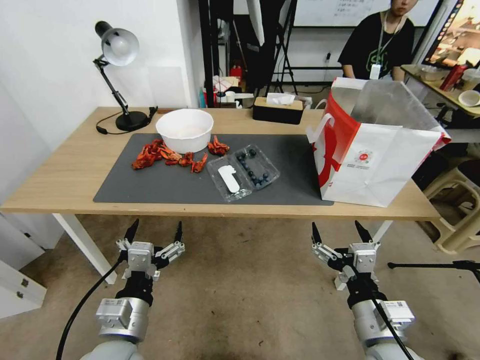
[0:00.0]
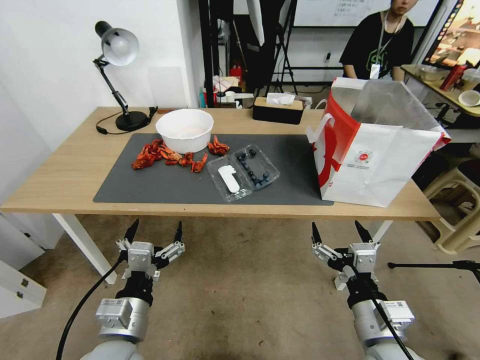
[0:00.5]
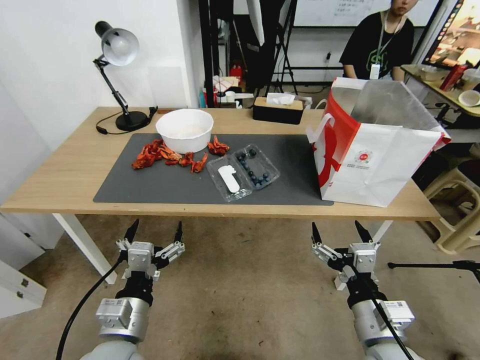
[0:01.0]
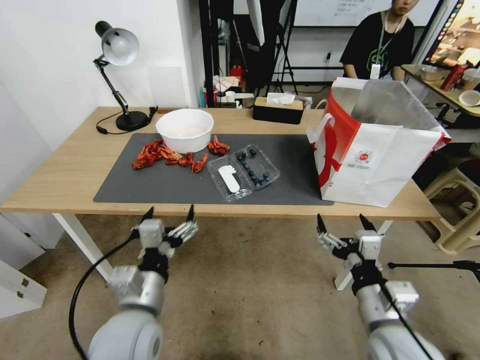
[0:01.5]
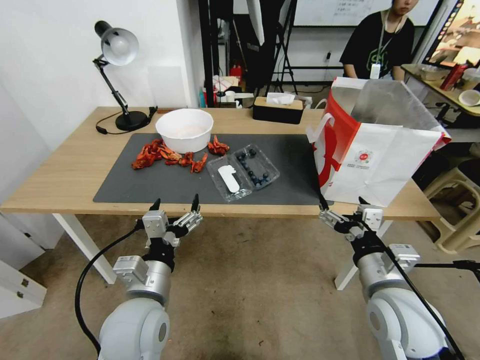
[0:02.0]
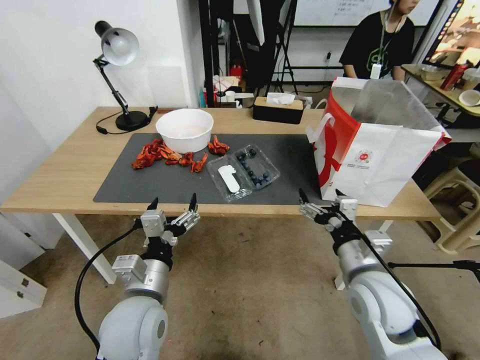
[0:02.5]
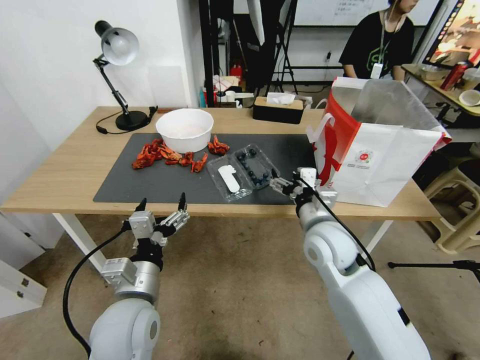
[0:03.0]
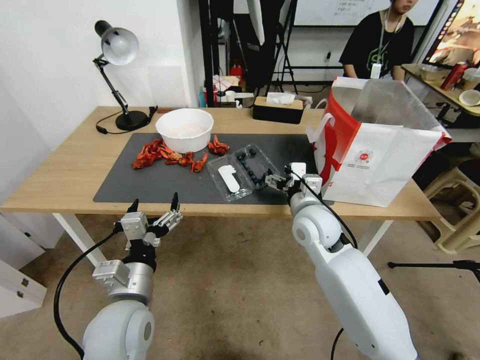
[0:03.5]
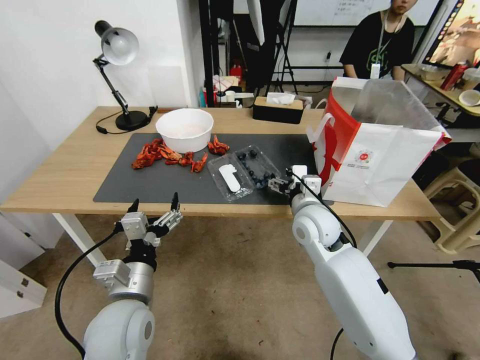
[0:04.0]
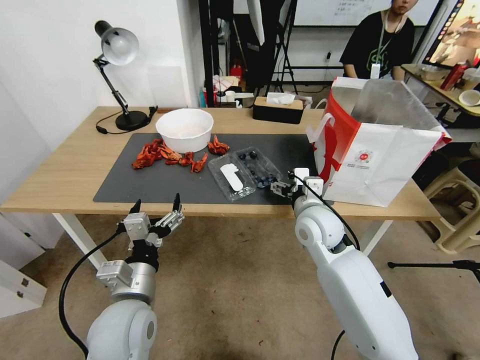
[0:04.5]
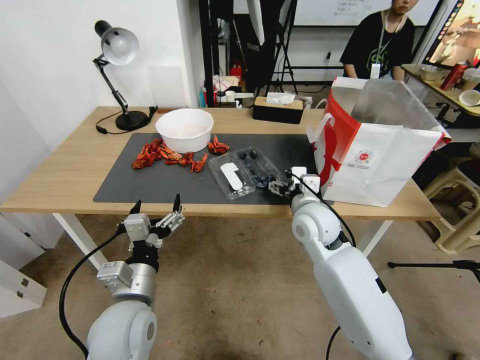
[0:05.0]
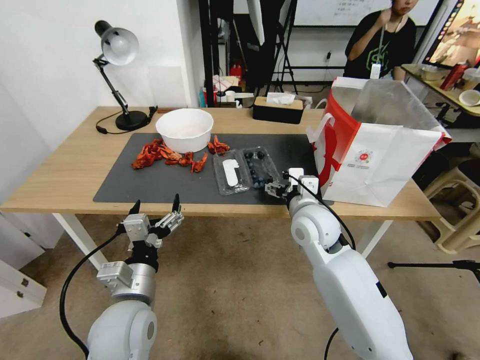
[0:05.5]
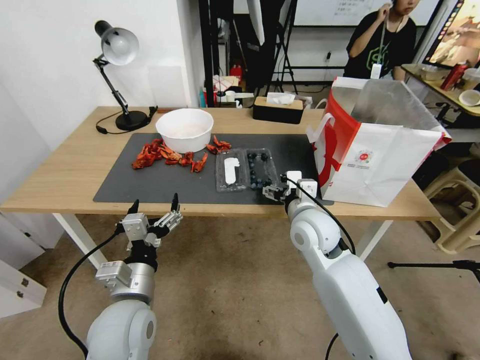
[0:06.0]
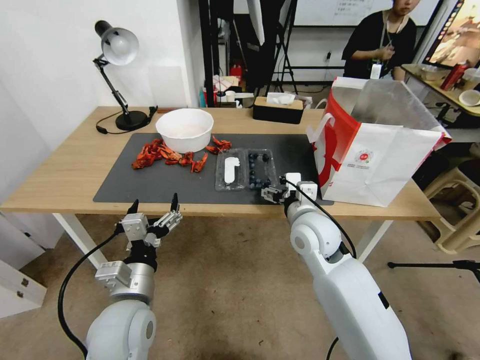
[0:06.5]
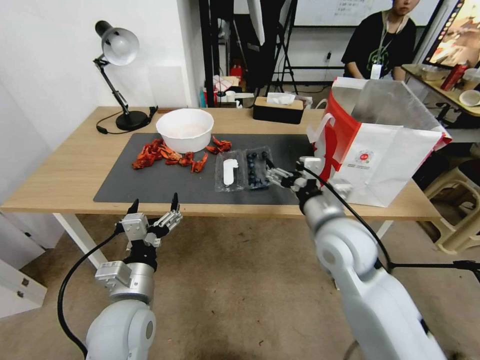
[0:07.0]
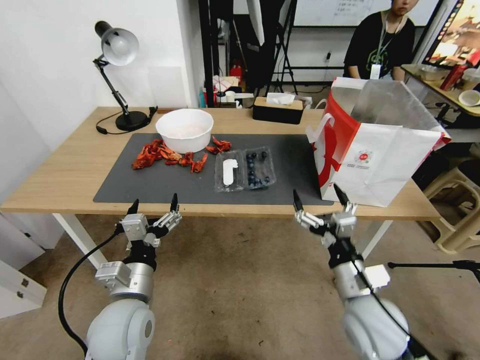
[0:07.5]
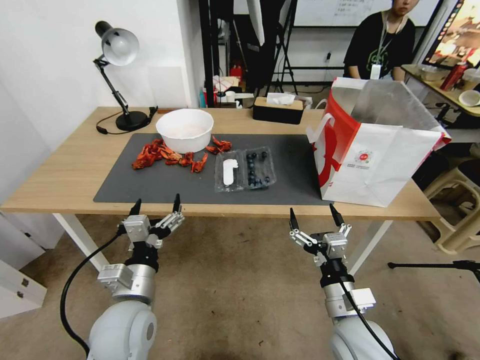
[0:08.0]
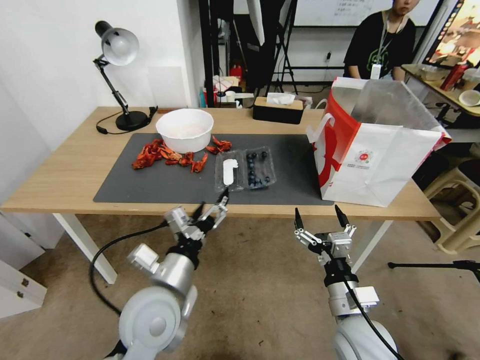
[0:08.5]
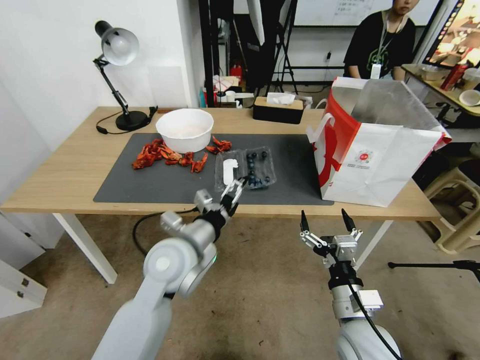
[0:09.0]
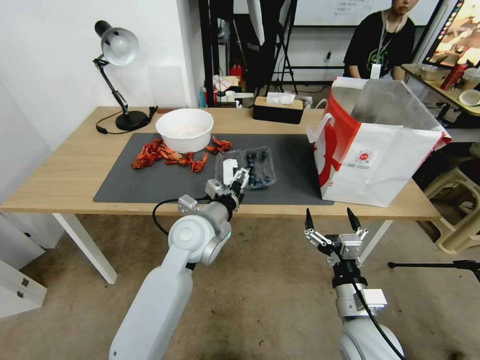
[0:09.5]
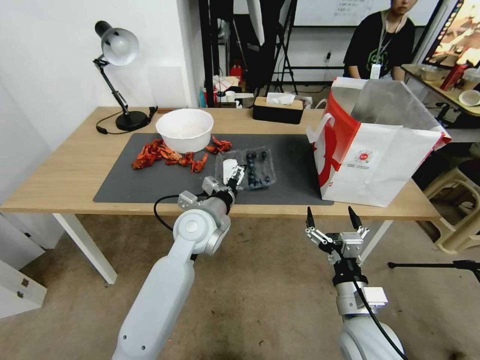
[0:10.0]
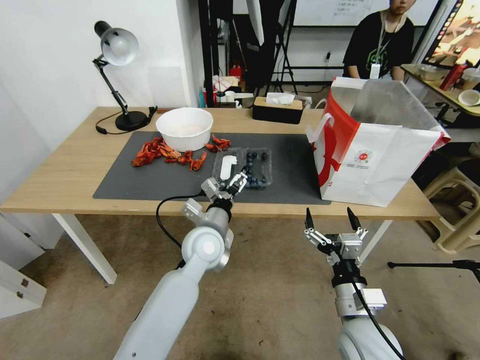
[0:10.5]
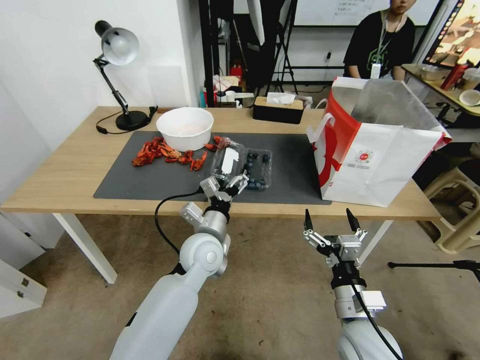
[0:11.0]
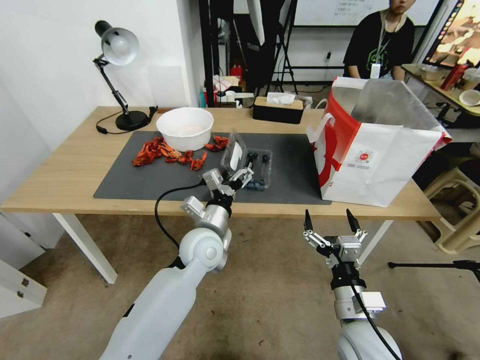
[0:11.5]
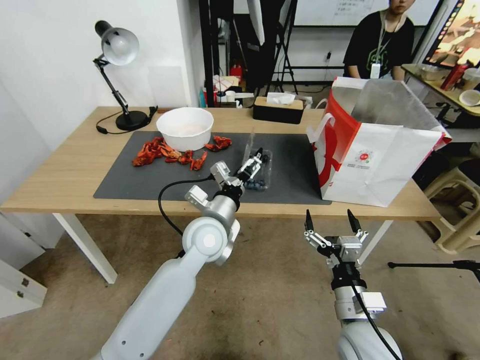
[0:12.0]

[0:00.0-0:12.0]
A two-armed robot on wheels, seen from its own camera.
Task of the whole recording: Close the takeout container lid, then place the container into the takeout bag.
0:02.0 to 0:04.0: The right gripper travels forward and to the left by about 20 cm.
0:04.0 to 0:06.0: The grippers stay close to where they were, moving slightly.
0:06.0 to 0:08.0: The right gripper shifts some 20 cm backward and downward.
0:08.0 to 0:10.0: The left gripper moves forward and to the right, some 20 cm.

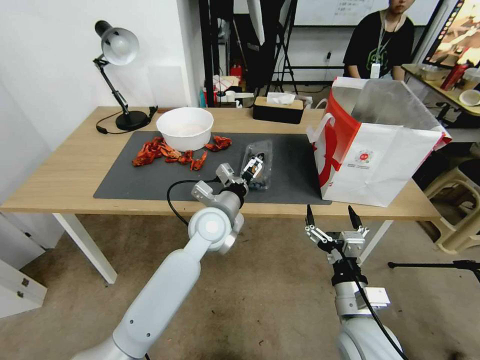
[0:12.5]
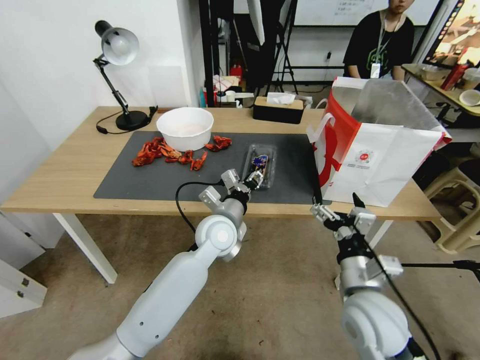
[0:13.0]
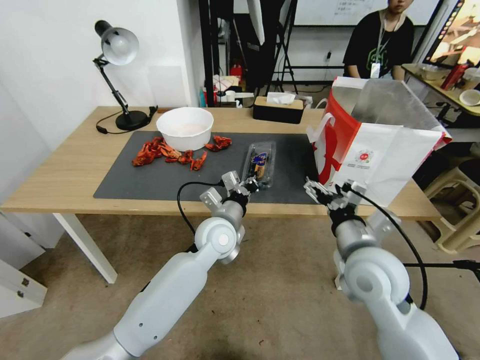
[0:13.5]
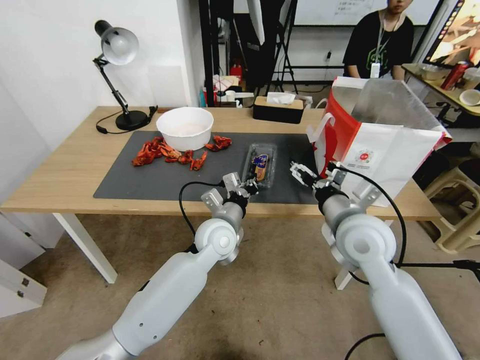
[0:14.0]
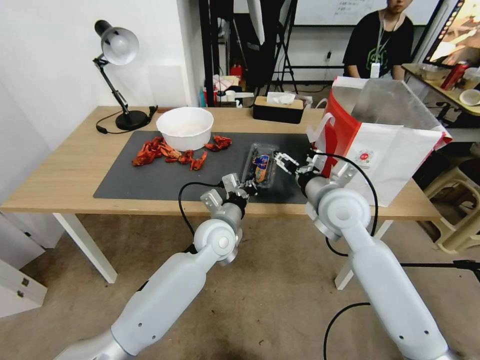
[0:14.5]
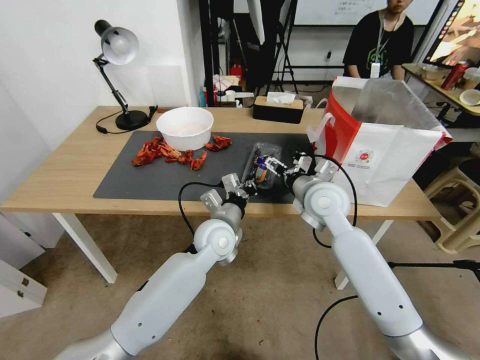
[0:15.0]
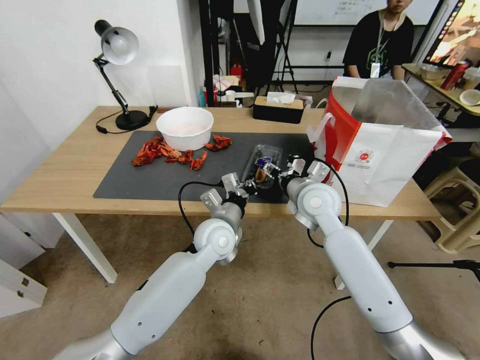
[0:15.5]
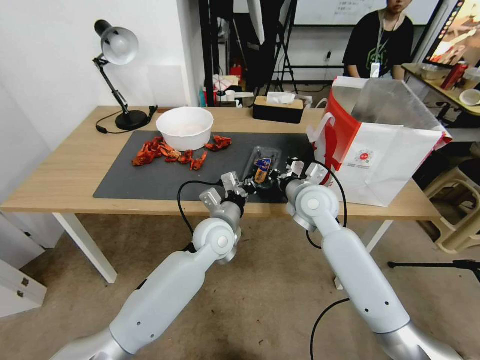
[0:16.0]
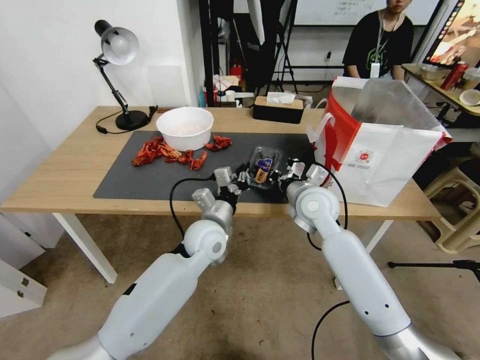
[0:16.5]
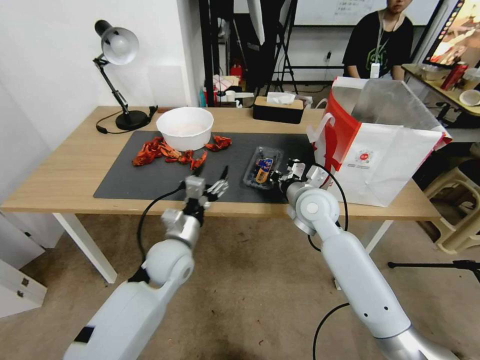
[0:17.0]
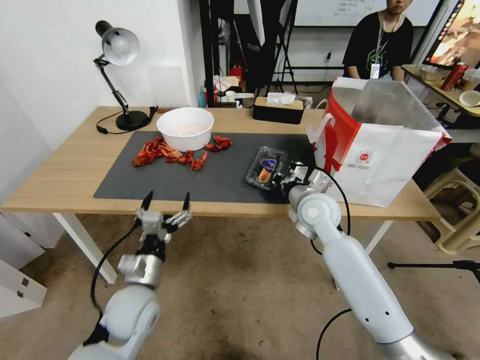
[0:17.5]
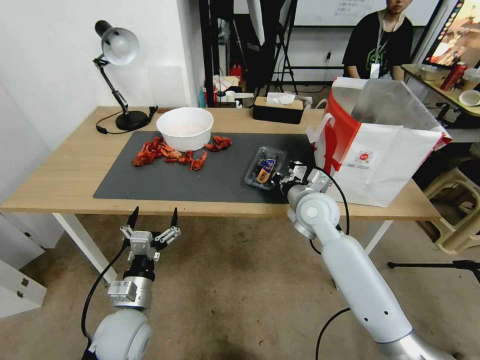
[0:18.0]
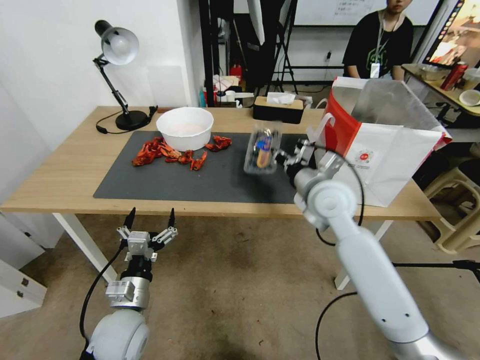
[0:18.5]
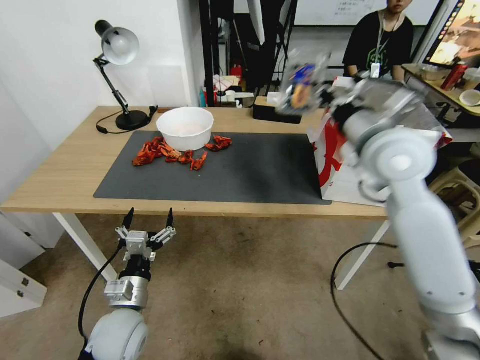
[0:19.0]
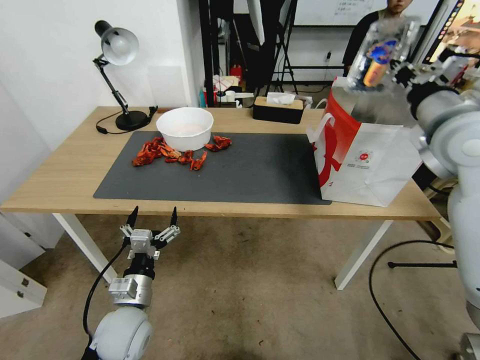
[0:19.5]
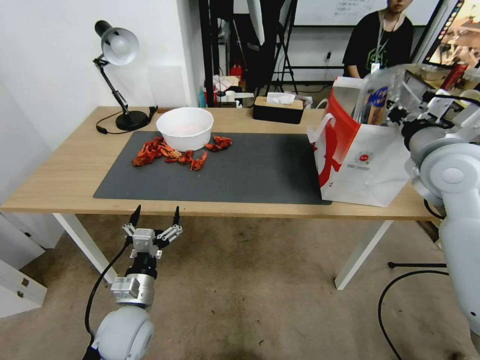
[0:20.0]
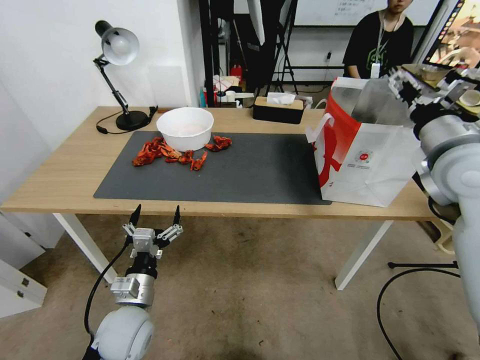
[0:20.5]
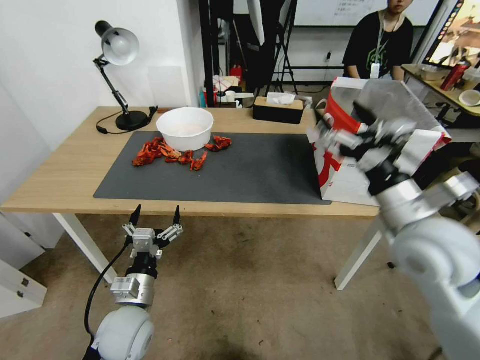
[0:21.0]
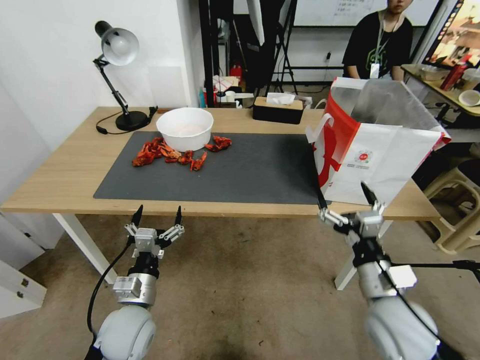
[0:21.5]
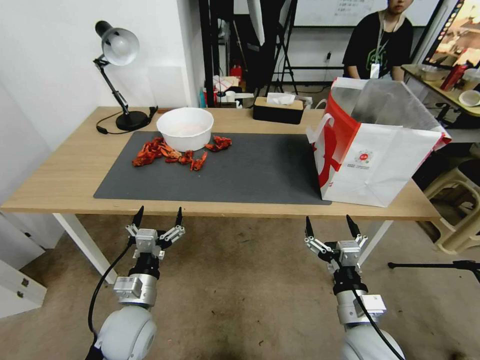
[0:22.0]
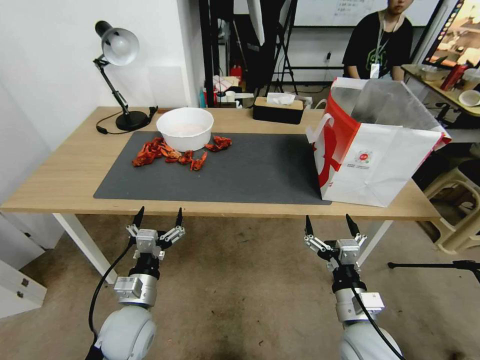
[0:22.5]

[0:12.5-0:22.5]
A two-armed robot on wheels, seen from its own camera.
Task of the whole recording: Close the takeout container lid, then place the container into the takeout bag.
0:12.5 to 0:14.5: The right gripper is displaced forward and upward by roughly 25 cm; the left gripper closes up.
0:14.5 to 0:16.5: The right gripper changes place by roughly 5 cm, and closes up.
0:16.5 to 0:18.5: The left gripper is displaced backward and to the left by approximately 20 cm, and opens its fingers, while the right gripper moves about 5 cm.
0:18.5 to 0:20.5: The right gripper shifts about 20 cm to the right and upward, and opens its fingers.
0:20.5 to 0:22.5: The right gripper goes some 35 cm downward and backward, and opens up.
